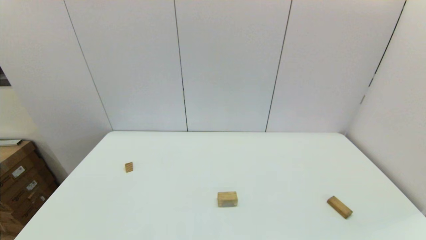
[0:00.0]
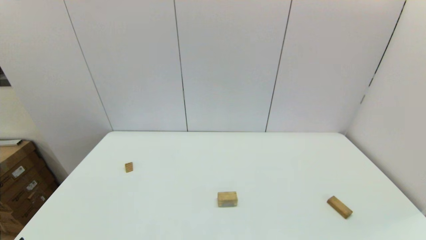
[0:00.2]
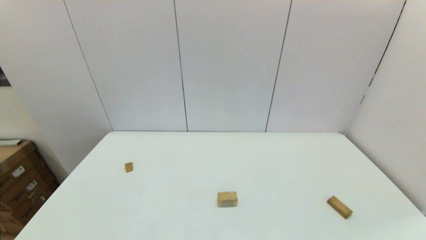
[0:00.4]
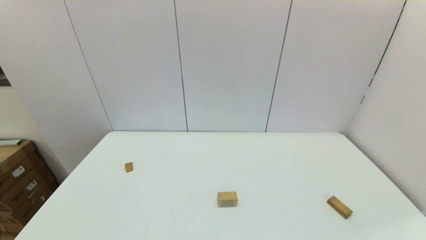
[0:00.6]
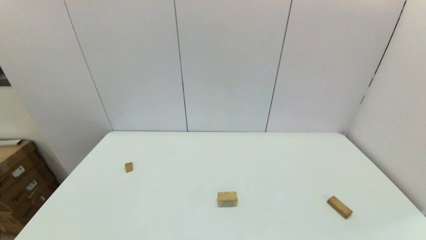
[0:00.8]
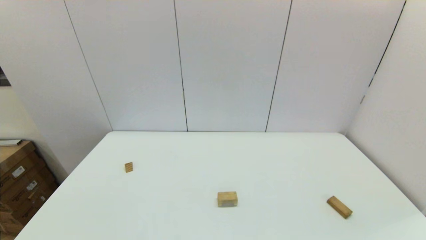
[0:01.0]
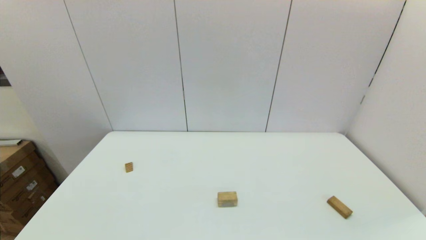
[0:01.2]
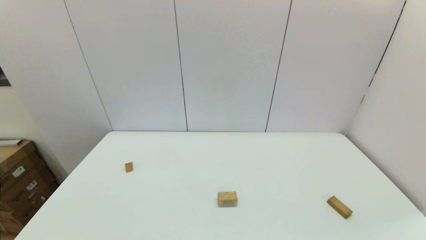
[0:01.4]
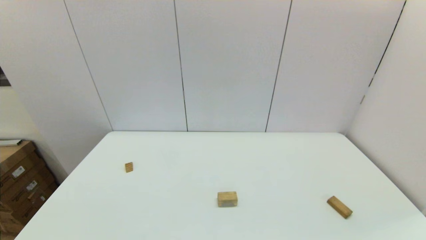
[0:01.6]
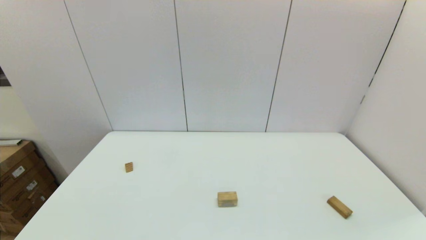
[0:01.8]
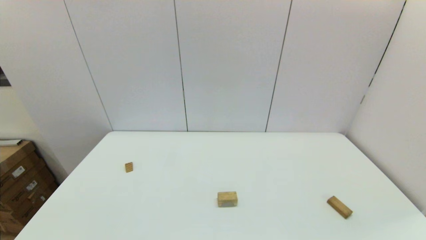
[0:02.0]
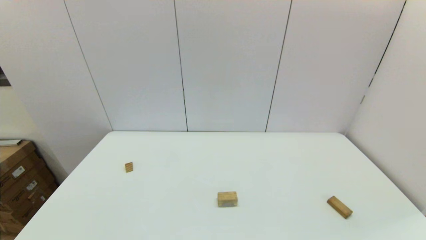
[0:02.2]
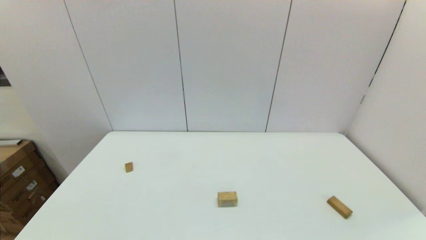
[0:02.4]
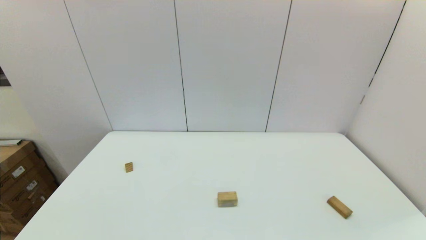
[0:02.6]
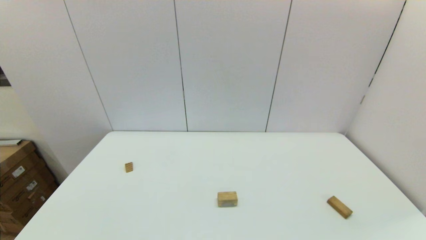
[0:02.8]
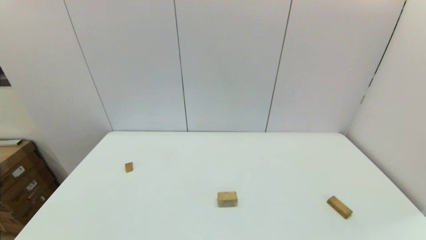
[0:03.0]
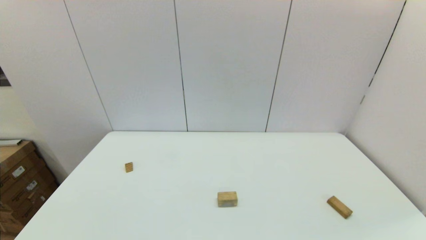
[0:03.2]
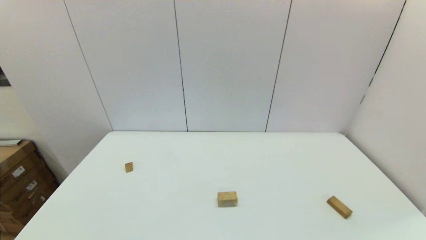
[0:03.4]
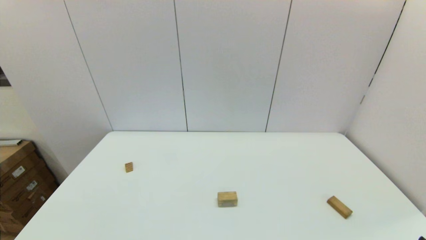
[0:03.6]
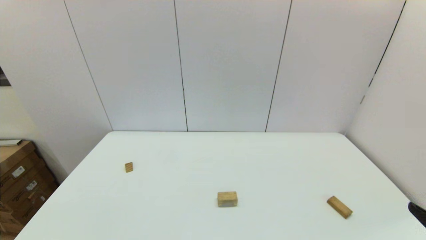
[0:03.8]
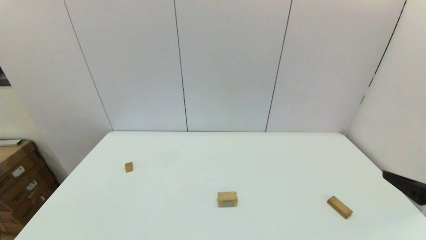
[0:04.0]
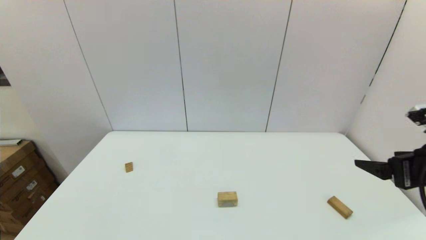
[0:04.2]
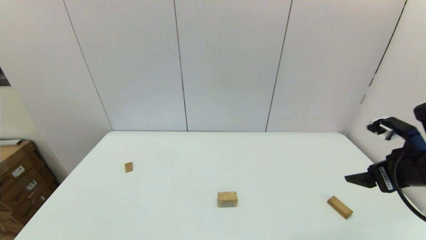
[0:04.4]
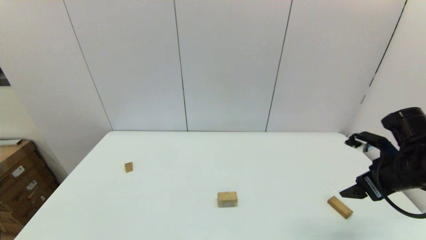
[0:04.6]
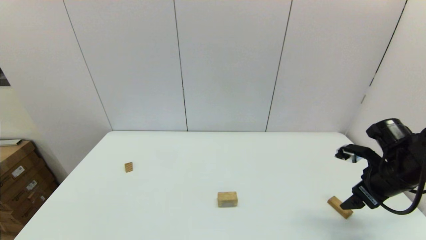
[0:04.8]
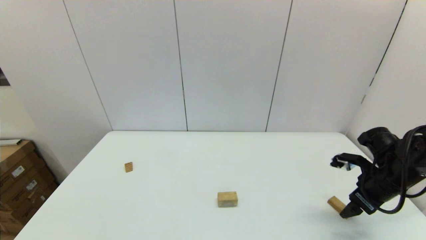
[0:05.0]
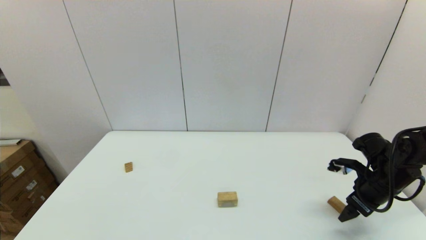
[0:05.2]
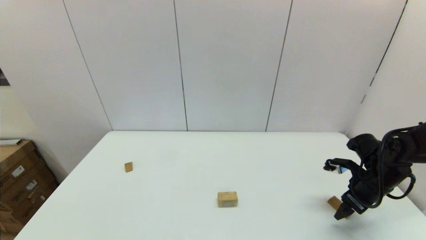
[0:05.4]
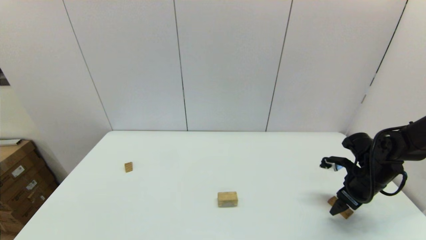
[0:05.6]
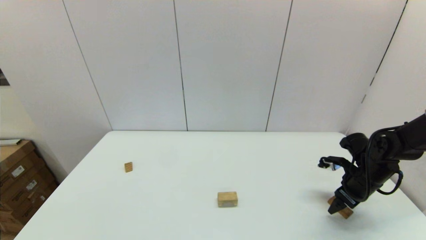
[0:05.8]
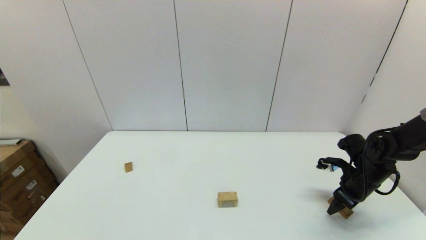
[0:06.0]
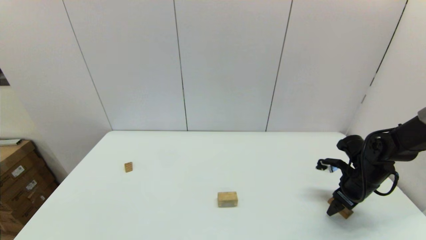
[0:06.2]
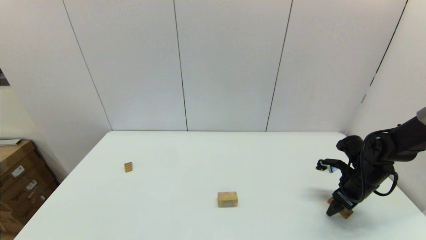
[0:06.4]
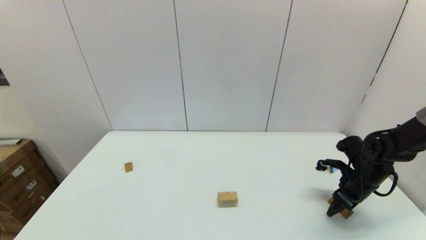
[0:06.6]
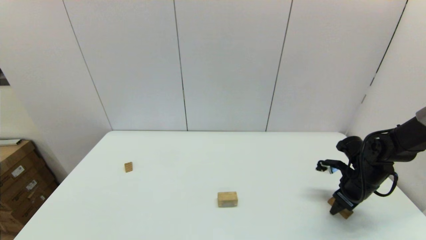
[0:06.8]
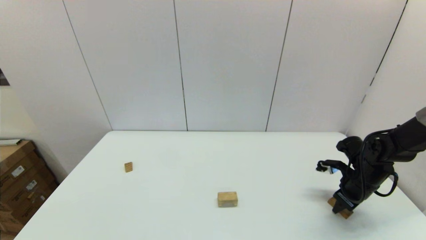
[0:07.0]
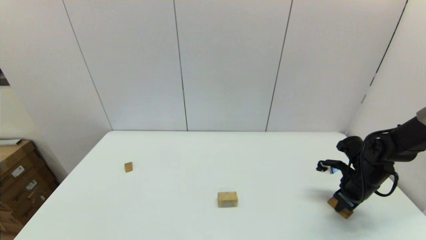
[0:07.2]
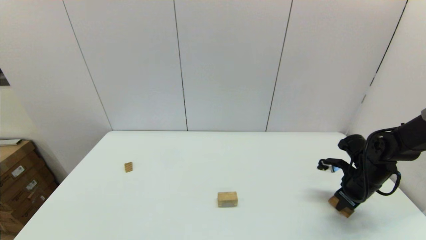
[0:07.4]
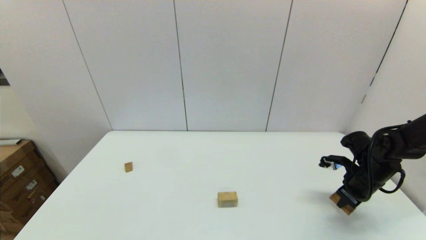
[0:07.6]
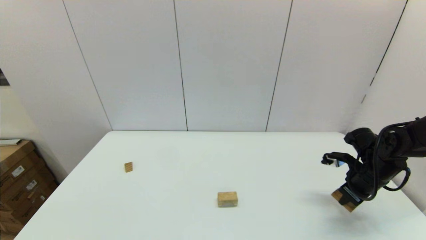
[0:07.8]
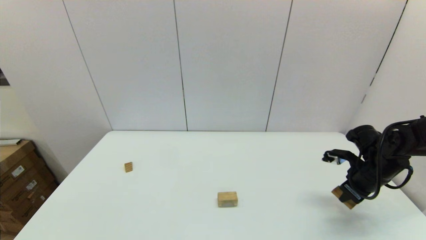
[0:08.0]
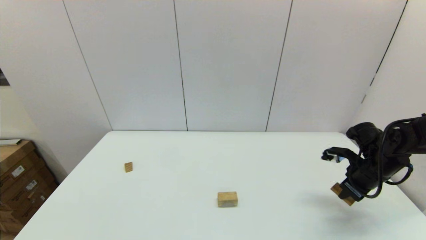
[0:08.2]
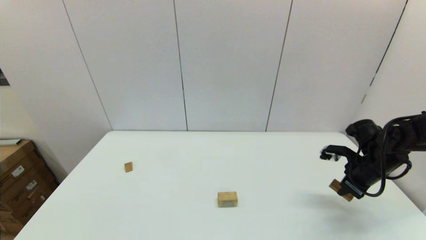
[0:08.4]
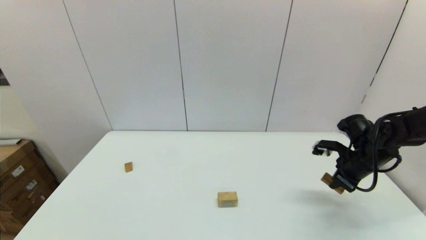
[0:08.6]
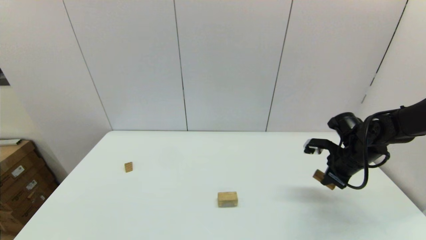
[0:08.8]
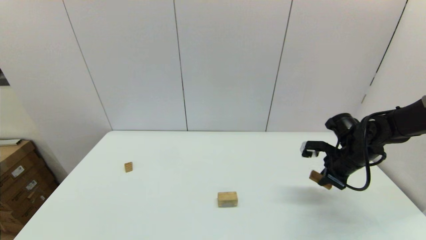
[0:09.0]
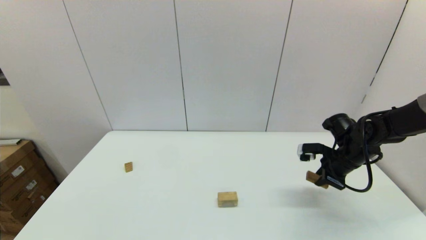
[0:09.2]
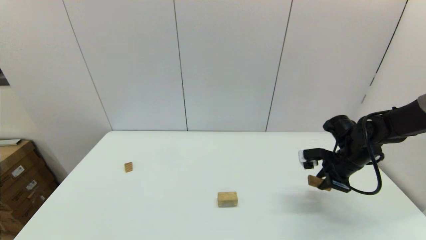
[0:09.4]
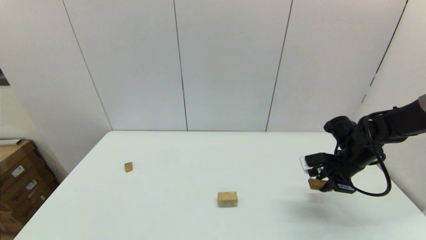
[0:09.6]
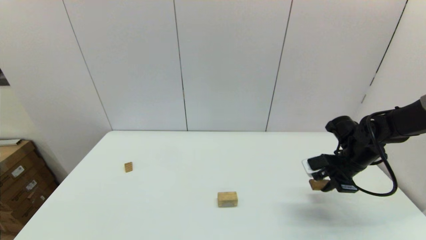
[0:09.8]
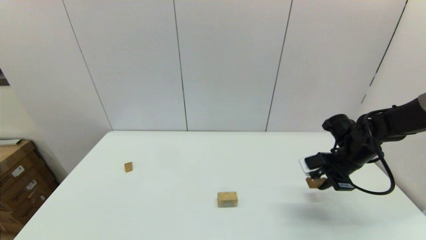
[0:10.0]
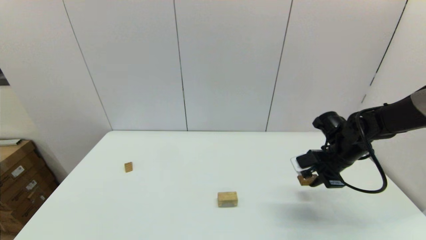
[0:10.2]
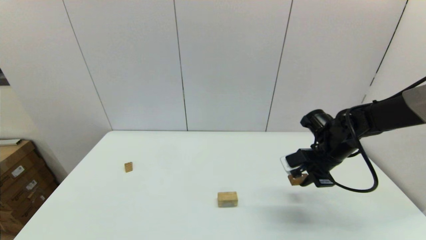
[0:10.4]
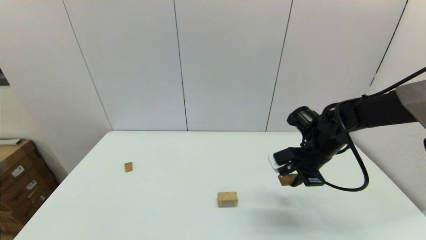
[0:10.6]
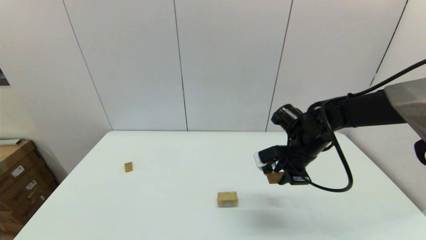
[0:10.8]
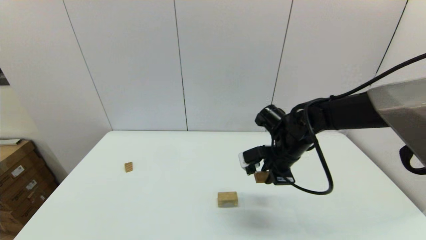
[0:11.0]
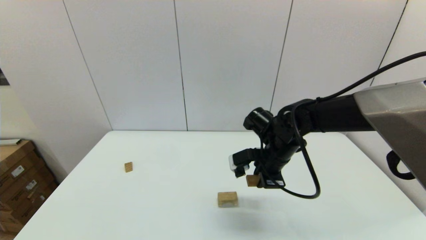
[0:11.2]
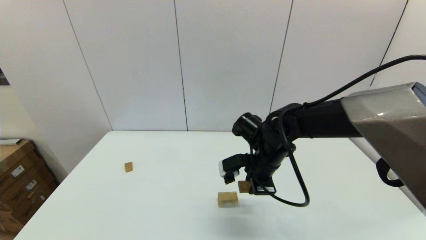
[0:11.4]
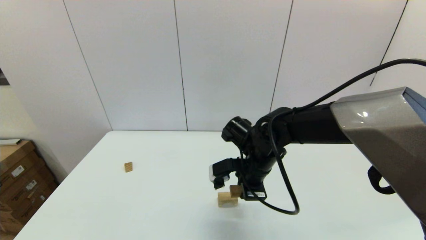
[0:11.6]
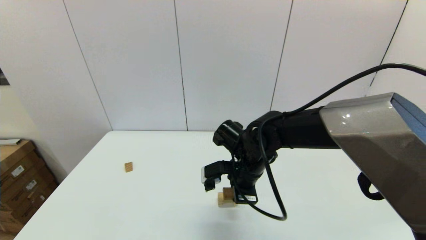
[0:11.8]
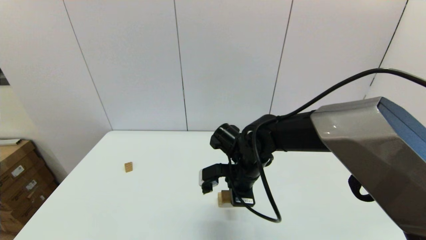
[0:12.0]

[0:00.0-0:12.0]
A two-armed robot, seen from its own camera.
Task of the whole recording: place the arched building blocks in the center of the table, set up the rectangular building blocks, and then set up the triangular building blocks.
Step, 0:00.0 to 0:07.4: Grasp the box-shaped block with the right gripper.
0:01.6 to 0:03.0: Both grippers stay put.
0:03.0 to 0:04.4: The right gripper goes approximately 25 cm forward and upward.
0:04.4 to 0:06.0: The right gripper shifts about 20 cm downward and forward.
0:06.0 to 0:07.6: The right gripper closes its fingers.
0:07.6 to 0:09.0: The right gripper shifts by about 5 cm.
0:09.0 to 0:10.4: The right gripper travels to the left by roughly 5 cm.
0:10.4 to 0:12.0: The right gripper moves to the left, roughly 20 cm.

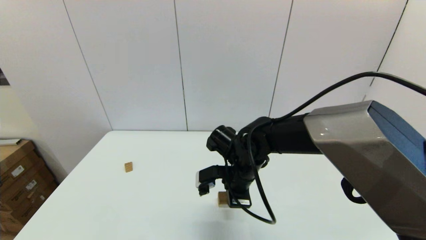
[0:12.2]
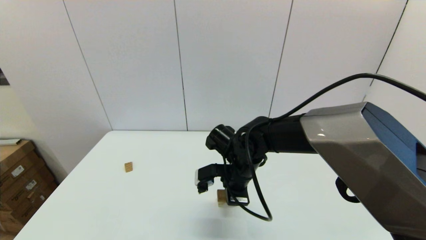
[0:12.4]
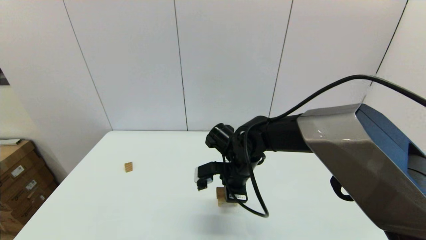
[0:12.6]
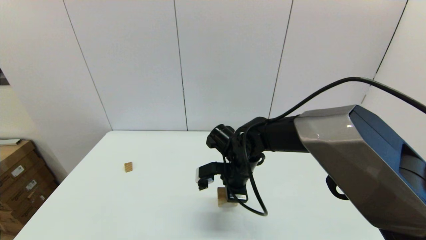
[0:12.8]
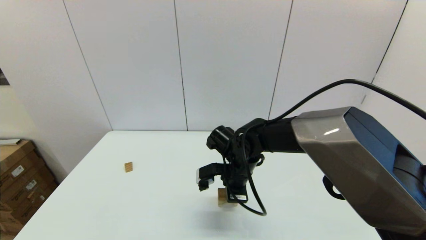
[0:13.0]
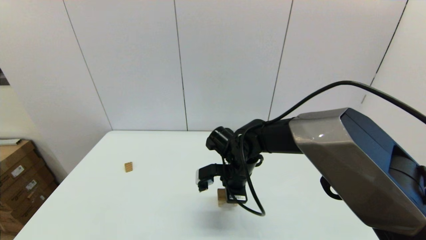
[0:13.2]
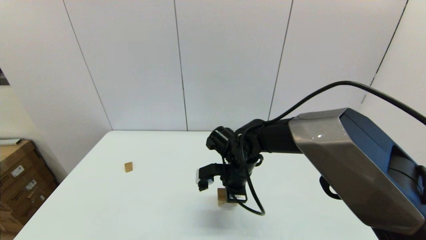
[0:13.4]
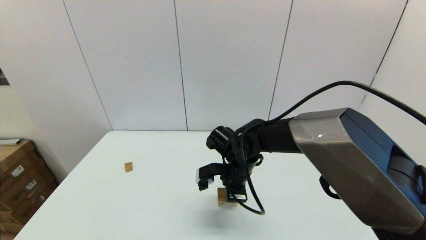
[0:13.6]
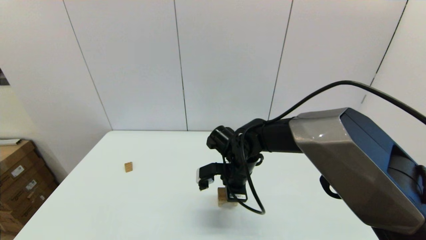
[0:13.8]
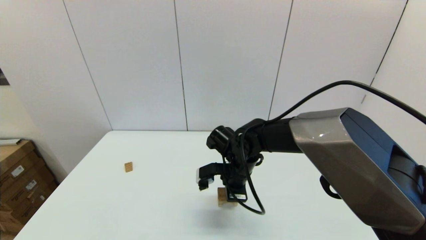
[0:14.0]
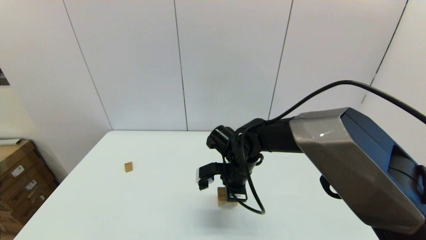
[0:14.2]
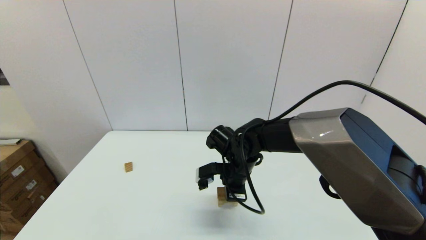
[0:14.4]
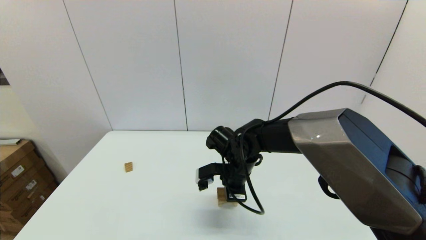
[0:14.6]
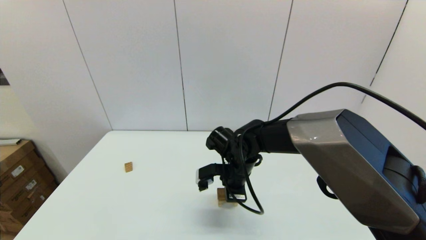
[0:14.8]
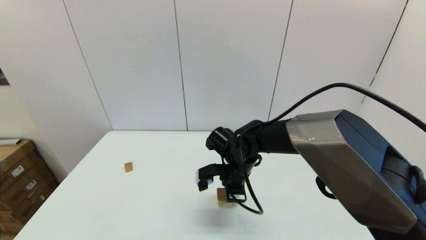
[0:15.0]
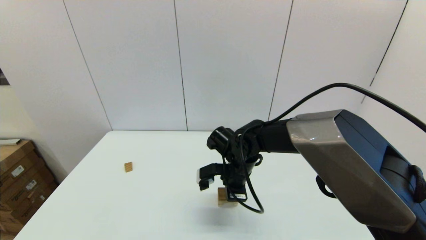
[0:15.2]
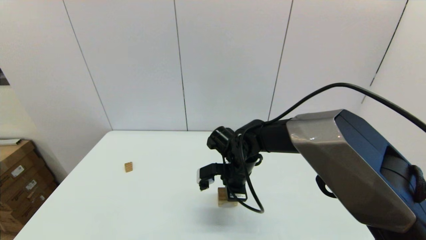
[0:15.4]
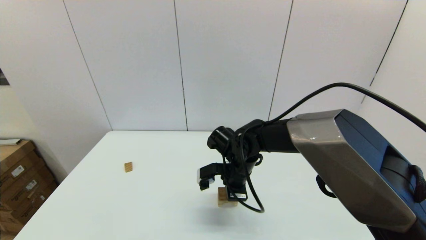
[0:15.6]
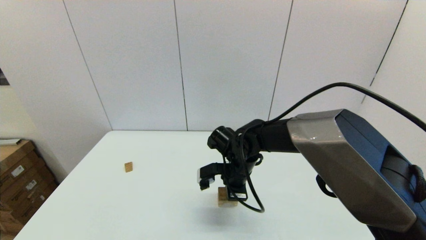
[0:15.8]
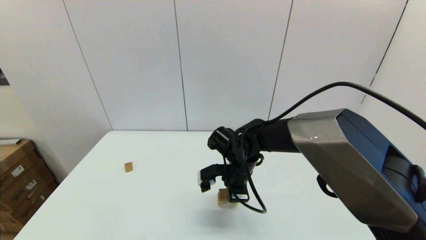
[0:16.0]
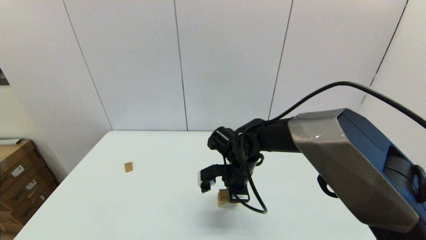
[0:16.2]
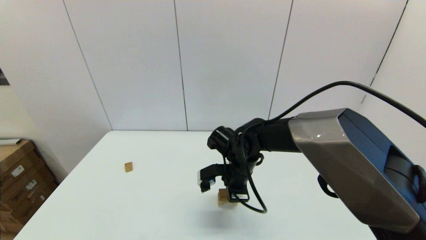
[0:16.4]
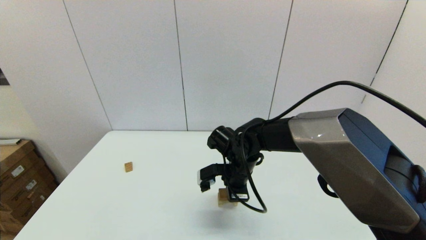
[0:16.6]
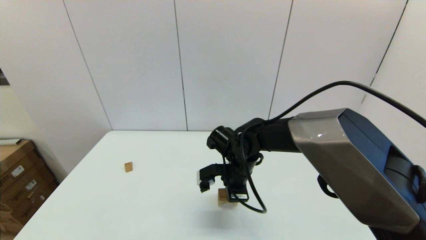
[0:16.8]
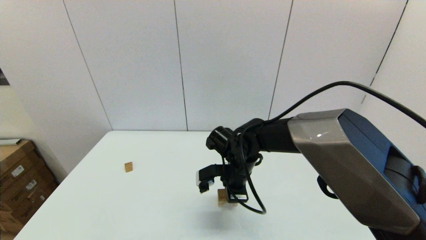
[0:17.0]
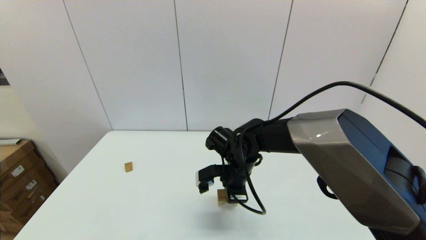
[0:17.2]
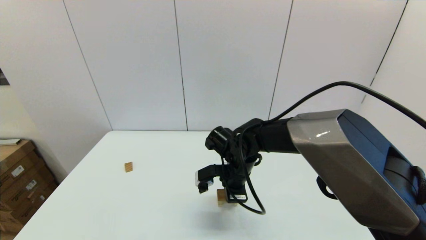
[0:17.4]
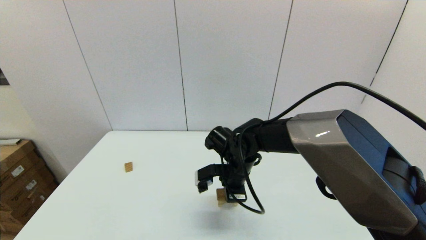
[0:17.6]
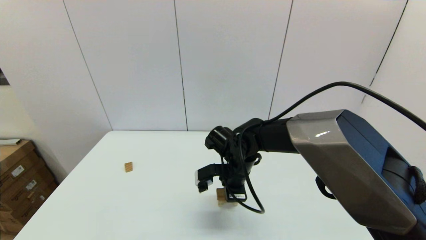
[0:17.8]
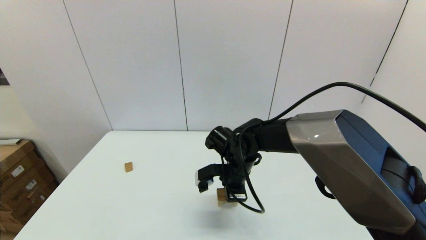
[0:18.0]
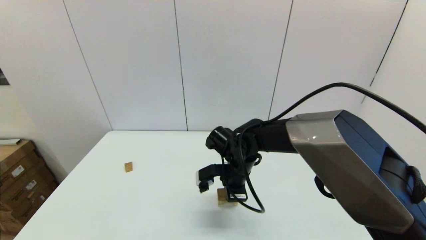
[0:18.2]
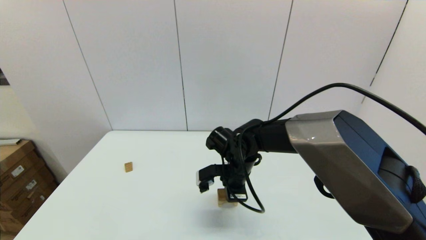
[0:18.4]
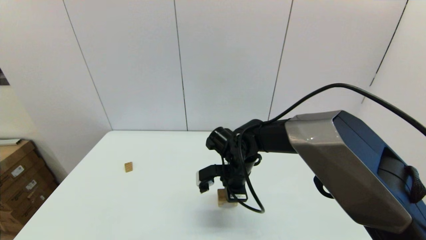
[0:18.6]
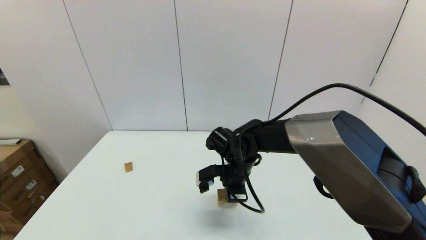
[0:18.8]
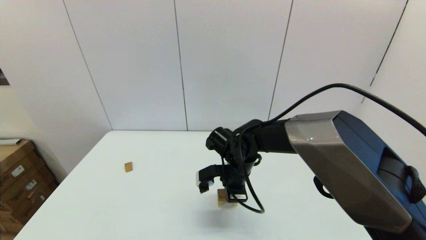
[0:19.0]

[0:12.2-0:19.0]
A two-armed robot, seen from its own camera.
Task of the whole recording: place the arched building blocks in the center of the table, set up the rectangular building blocks, and then set up the triangular building blocks.
0:12.2 to 0:13.6: The grippers make only small movements.
0:13.6 to 0:19.0: The two grippers keep their place.
